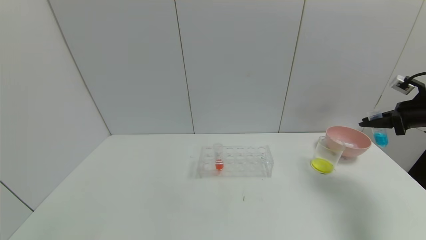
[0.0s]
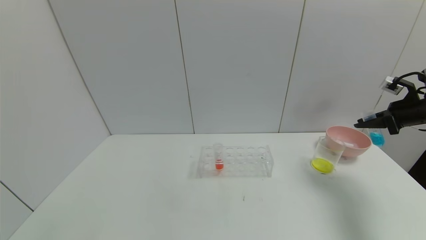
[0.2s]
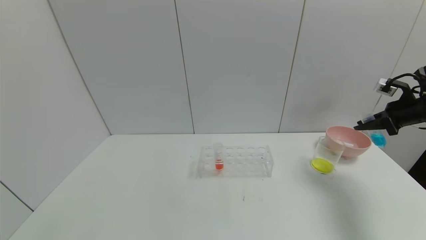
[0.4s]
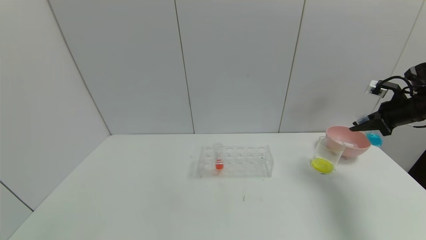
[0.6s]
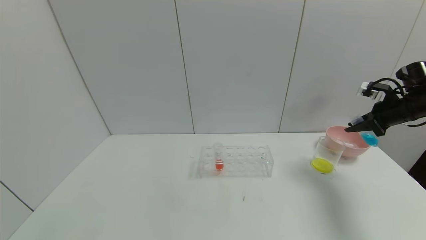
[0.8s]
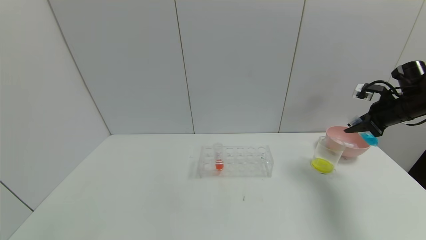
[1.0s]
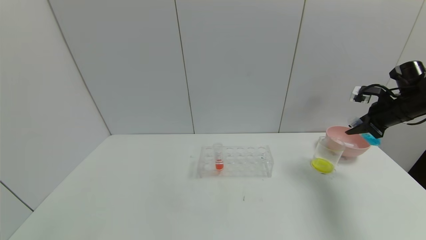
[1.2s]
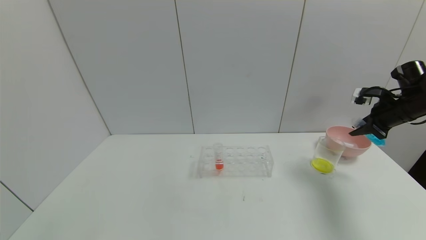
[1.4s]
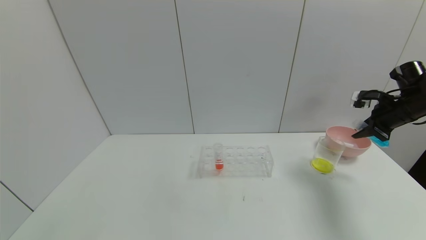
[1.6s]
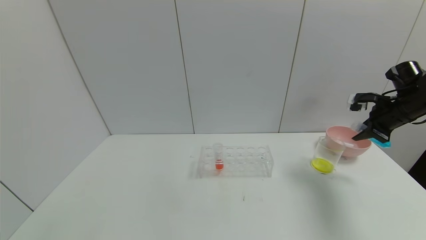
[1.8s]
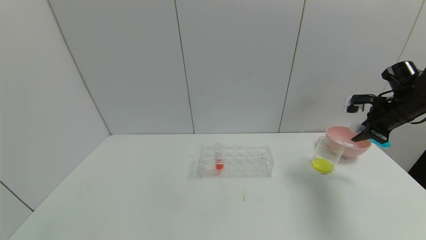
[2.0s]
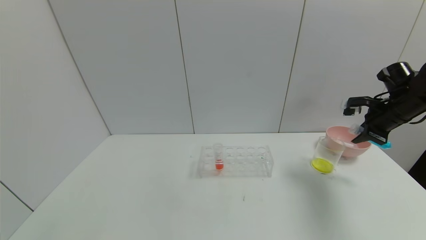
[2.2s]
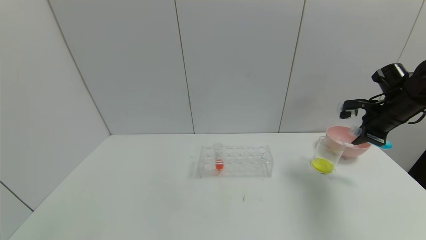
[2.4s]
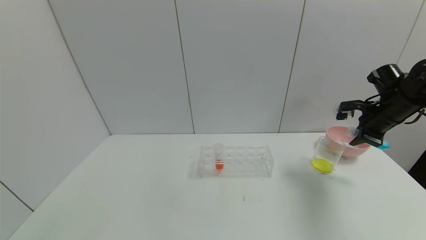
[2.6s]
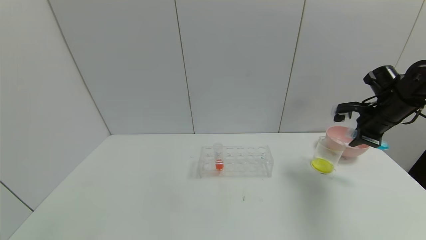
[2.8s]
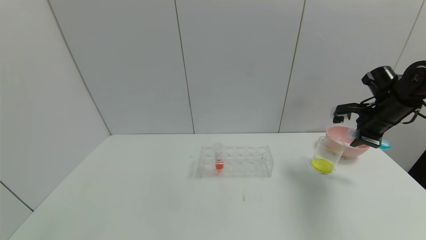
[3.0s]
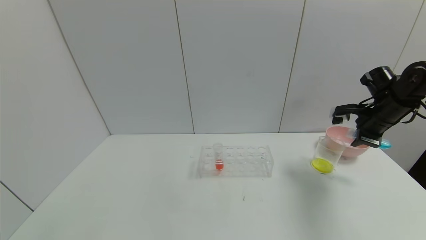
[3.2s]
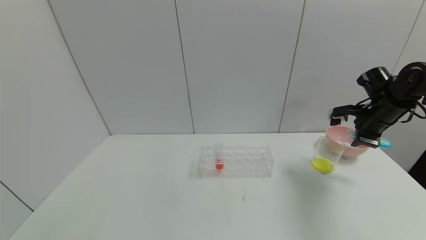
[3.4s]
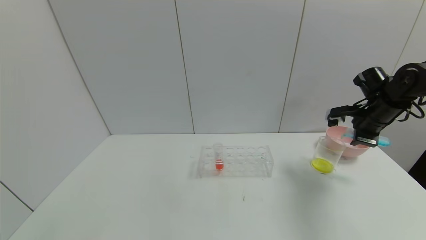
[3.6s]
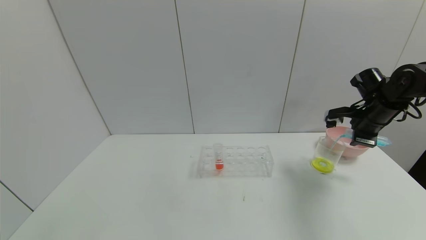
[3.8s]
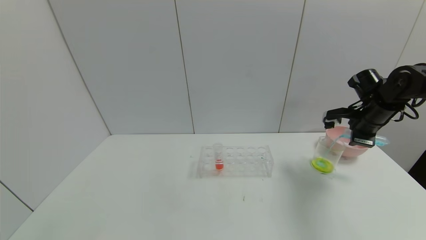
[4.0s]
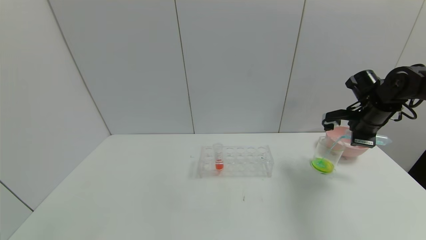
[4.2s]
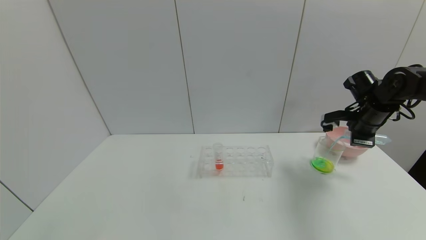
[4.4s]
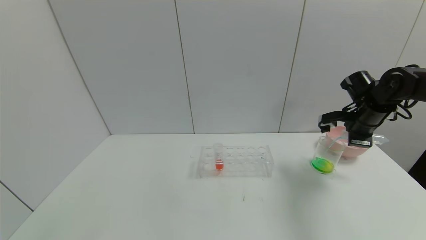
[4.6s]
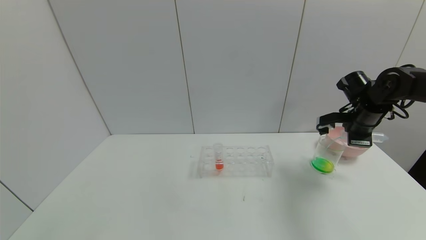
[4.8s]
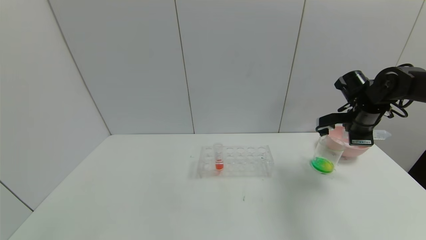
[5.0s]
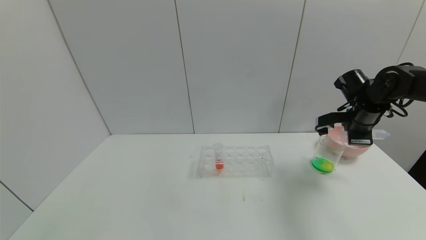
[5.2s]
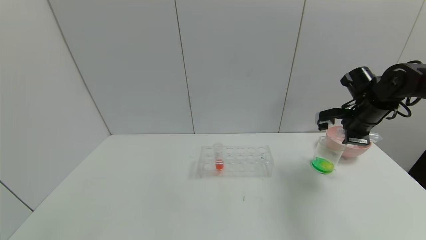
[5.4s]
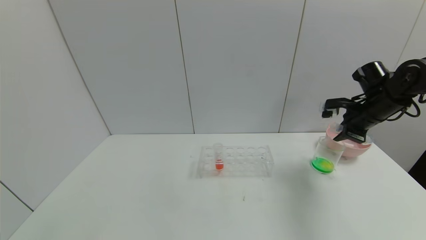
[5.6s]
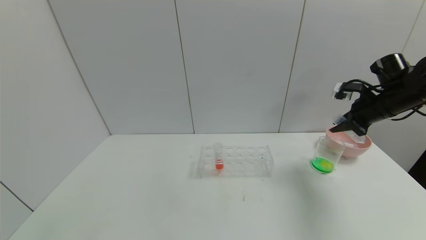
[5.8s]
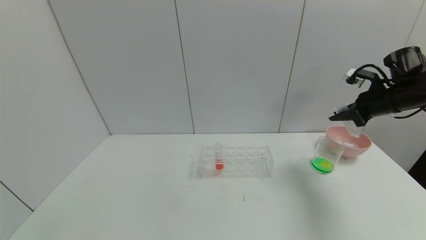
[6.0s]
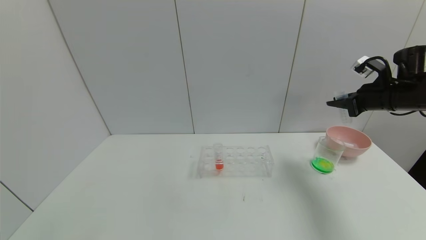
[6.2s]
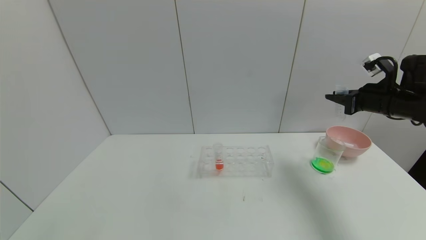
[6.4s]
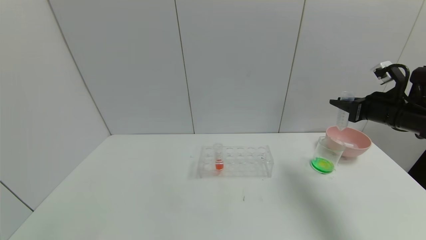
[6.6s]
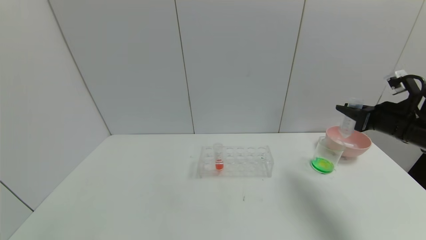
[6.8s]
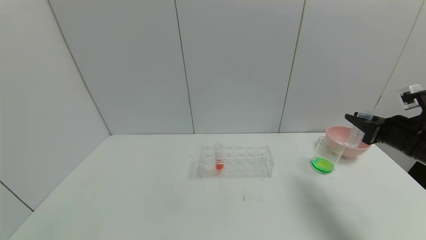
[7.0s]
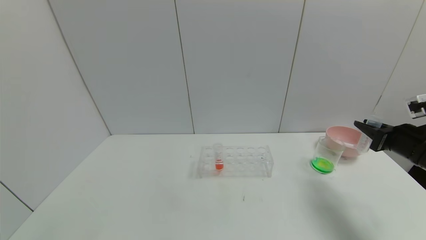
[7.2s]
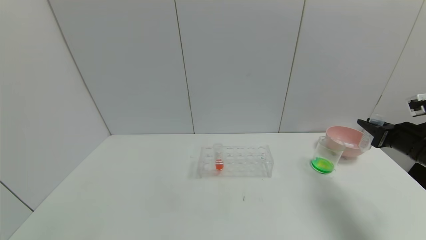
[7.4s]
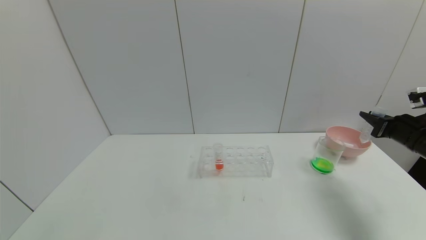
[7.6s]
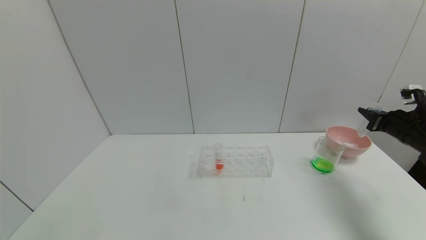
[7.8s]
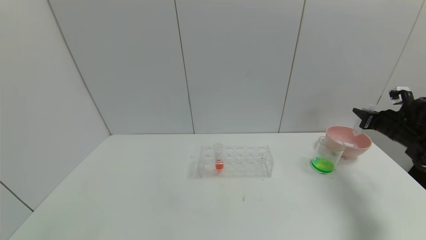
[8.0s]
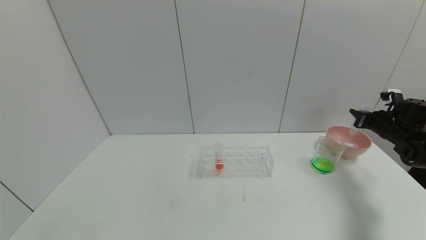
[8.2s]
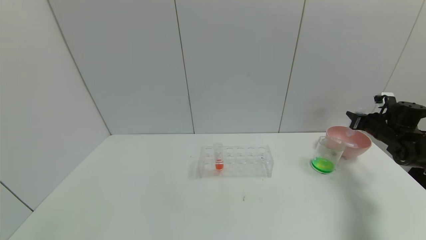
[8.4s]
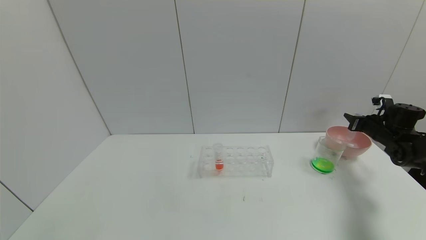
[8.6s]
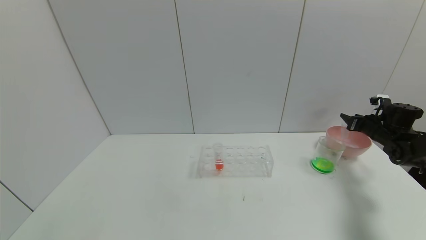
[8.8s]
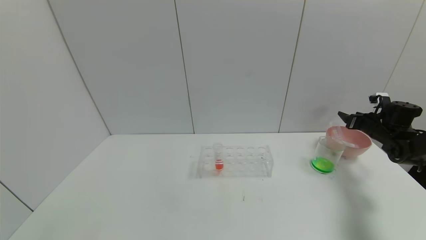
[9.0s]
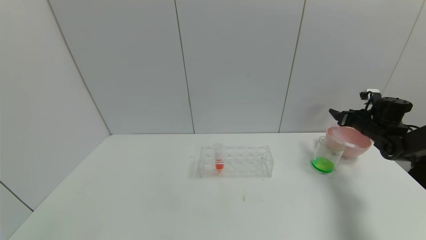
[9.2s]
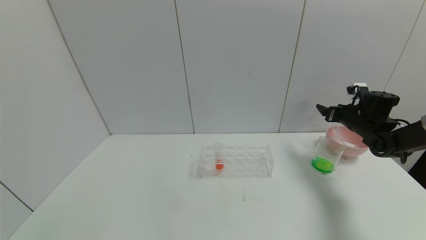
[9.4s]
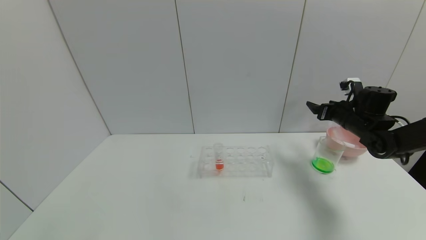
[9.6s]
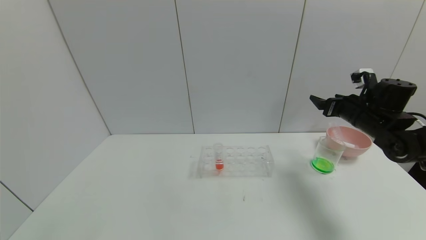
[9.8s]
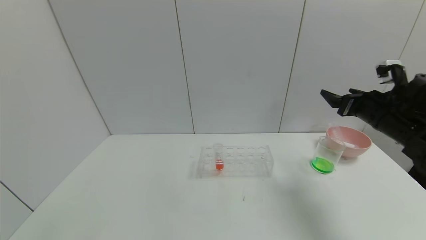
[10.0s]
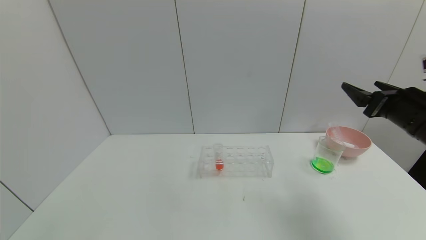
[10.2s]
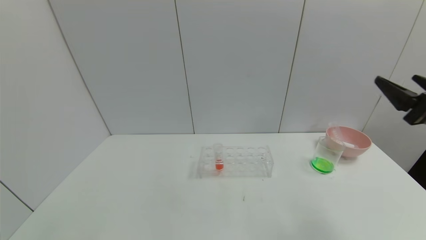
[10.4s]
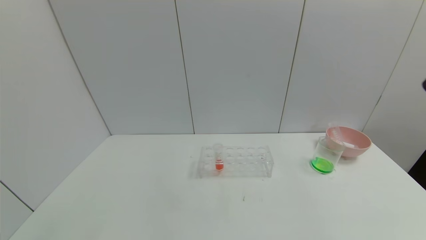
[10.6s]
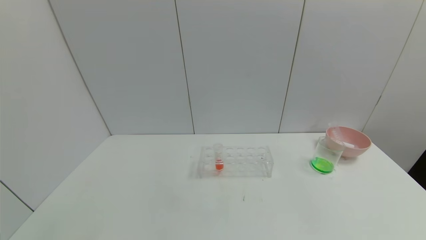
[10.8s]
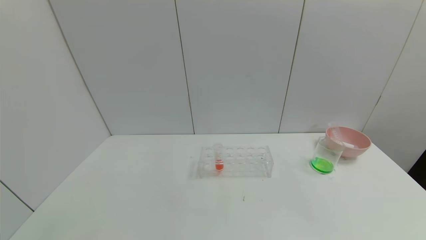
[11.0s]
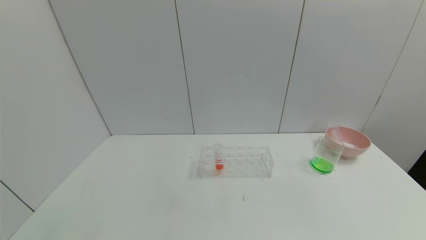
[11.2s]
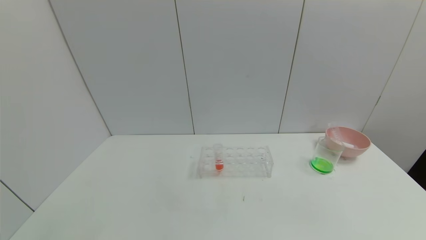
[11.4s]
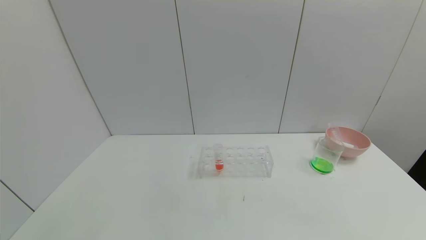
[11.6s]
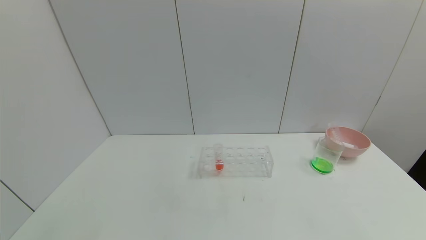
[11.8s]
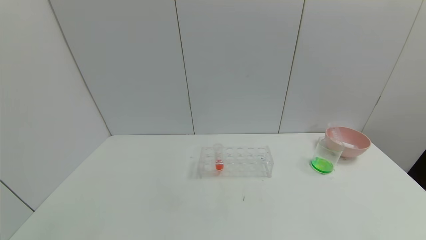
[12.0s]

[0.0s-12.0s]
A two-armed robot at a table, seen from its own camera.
Task of the whole recording: pick up the test tube with yellow pigment and the test tube with blue pigment by grippers and pour them into the beaker.
Step, 0.0s to 5.4s: Pour the blue reagent into the graduated cylinder with the right gripper.
Step, 5.6s to 9.0s: Place the test tube into the bowl with the right gripper.
0.0s to 1.6s: The right gripper is displaced to the left by some 5 cm.
1.6s to 3.0s: There are only small adjustments of the grippers.
3.0s to 4.4s: The grippers stay close to where they were, moving slightly.
4.4s to 6.0s: The right gripper changes place by some 5 cm.
6.0s to 7.6s: The right gripper travels downward, backward and to the right by about 10 cm.
7.6s to 9.0s: The right gripper moves forward and downward, some 15 cm, and opens.
9.0s to 10.4s: The right gripper goes some 30 cm backward, upward and to the left, and opens.
10.4s to 12.0s: The right gripper heads backward and downward, covering roughly 30 cm.
